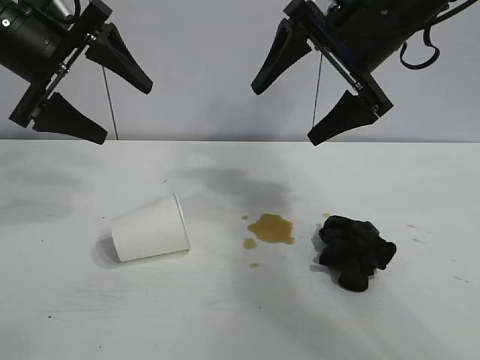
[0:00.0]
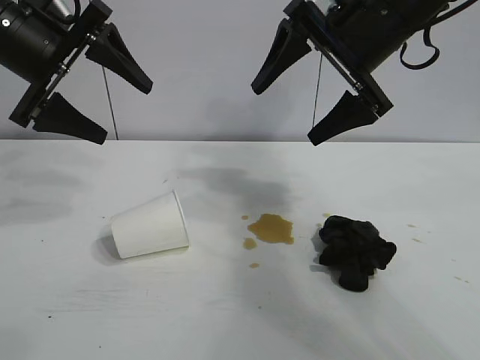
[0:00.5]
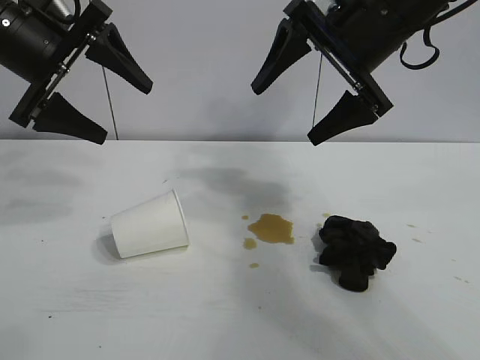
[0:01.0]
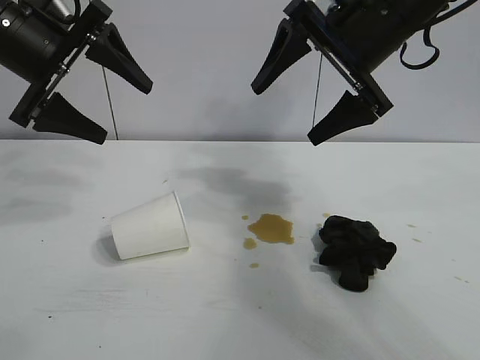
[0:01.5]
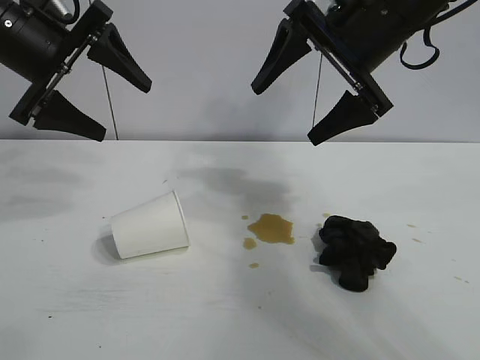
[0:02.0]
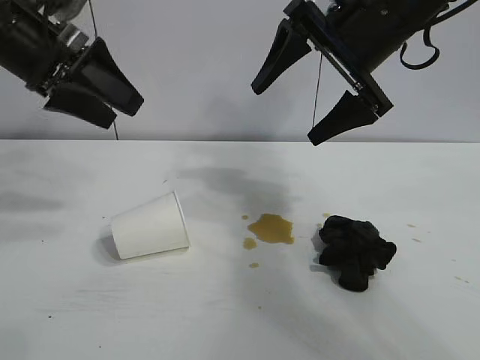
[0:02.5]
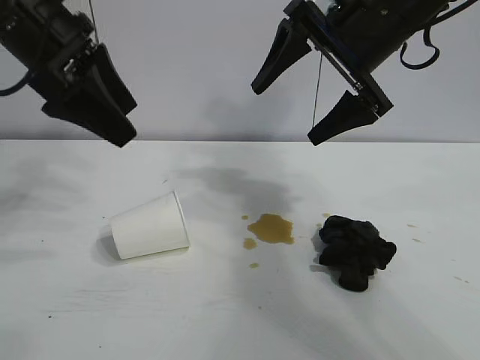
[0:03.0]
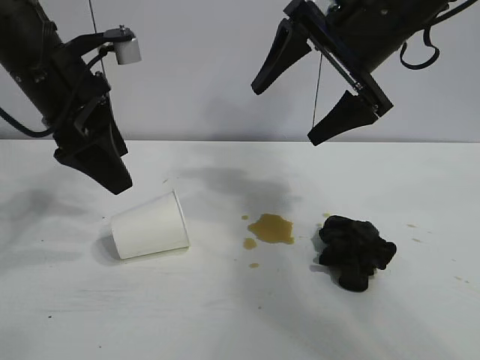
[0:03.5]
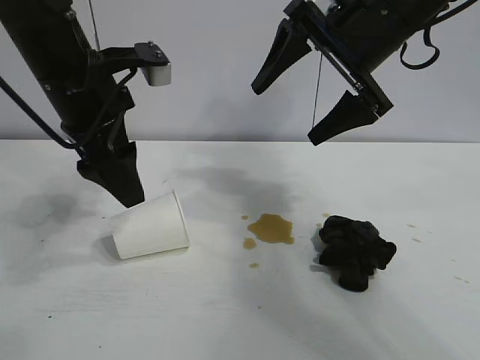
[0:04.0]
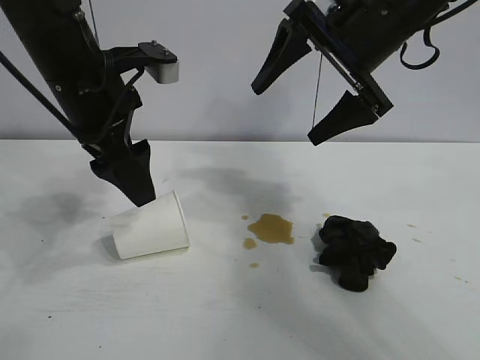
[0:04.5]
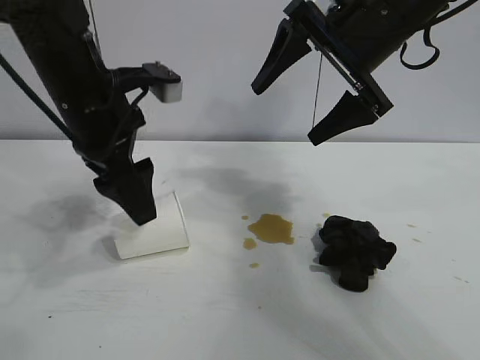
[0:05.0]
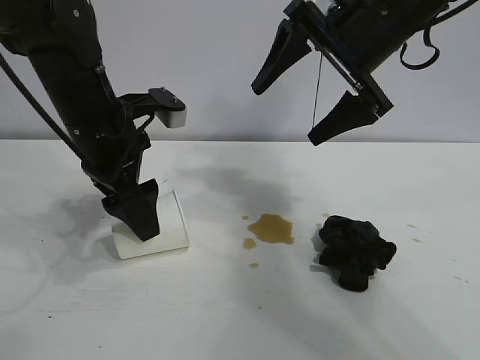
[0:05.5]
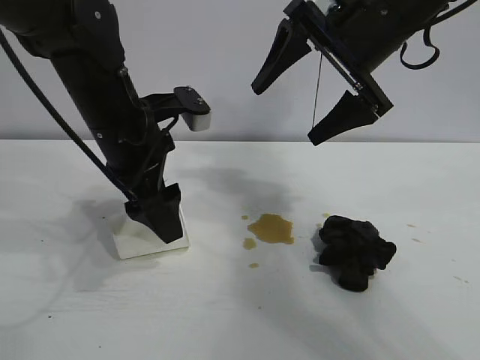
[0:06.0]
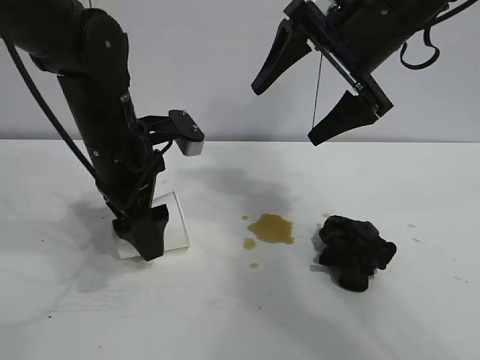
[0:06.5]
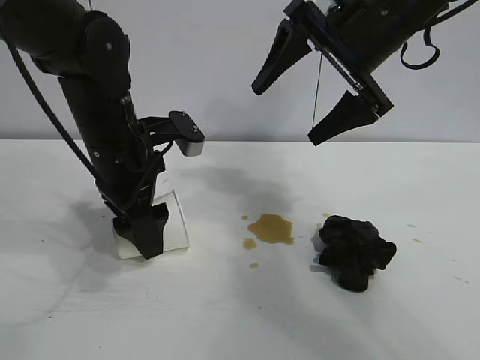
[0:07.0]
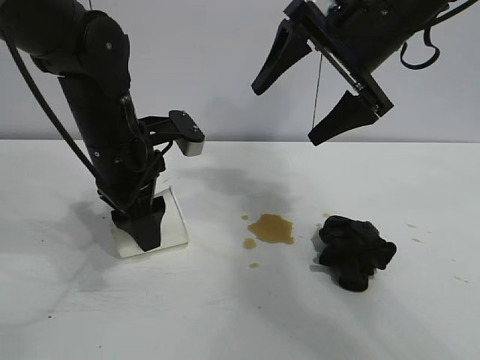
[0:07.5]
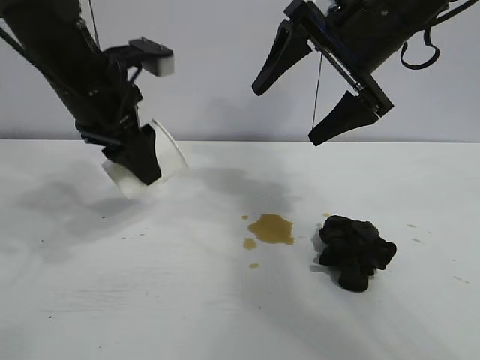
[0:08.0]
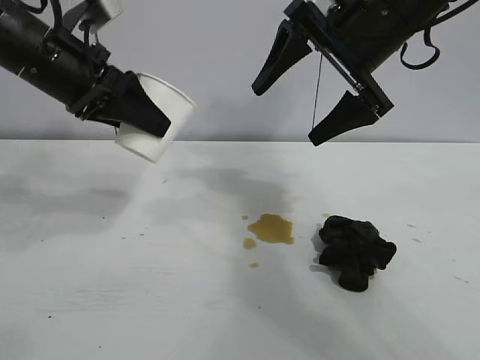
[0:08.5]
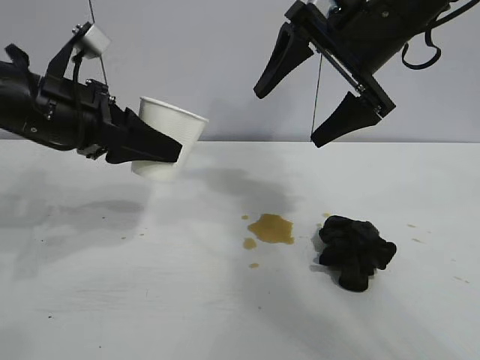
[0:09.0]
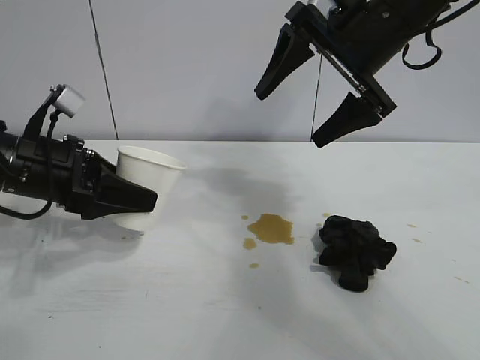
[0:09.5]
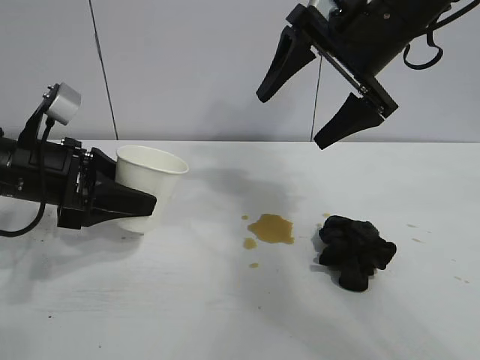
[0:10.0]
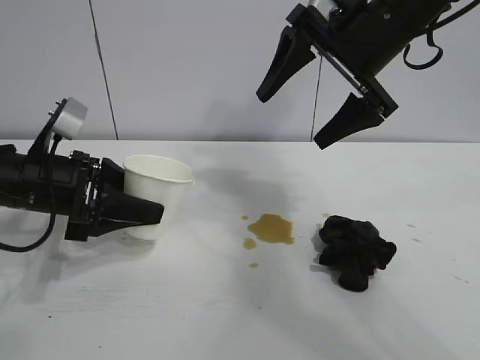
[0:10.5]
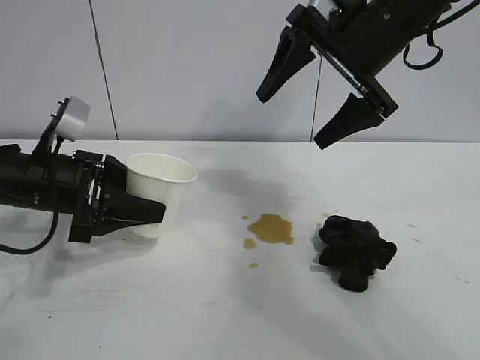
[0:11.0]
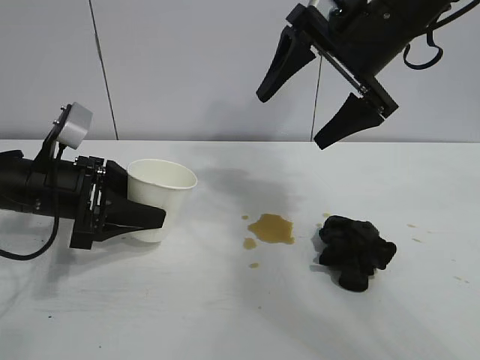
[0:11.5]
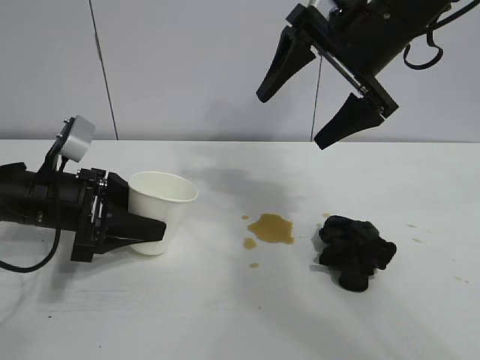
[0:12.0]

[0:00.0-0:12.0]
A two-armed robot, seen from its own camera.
Task of the whole recording: the left gripper pick up the fallen cup and place it upright, the right gripper grasp the black rag and wipe the stain on the table, the right gripper put the black rag back in its original position.
Step, 0:02.0 to 0:07.0: Grasp the paper cup with left gripper.

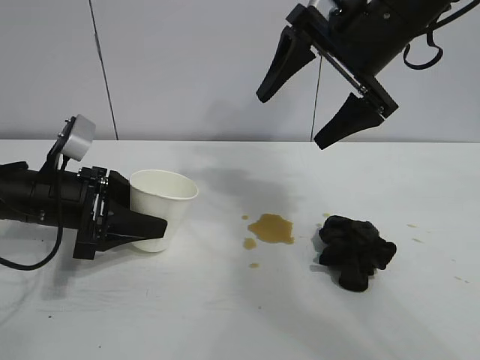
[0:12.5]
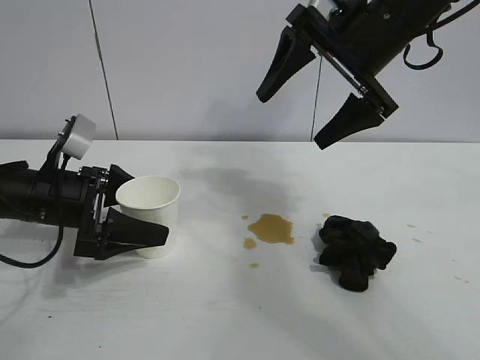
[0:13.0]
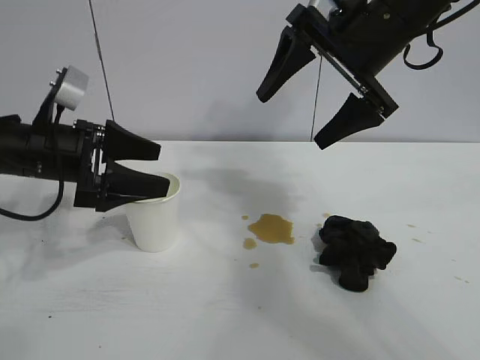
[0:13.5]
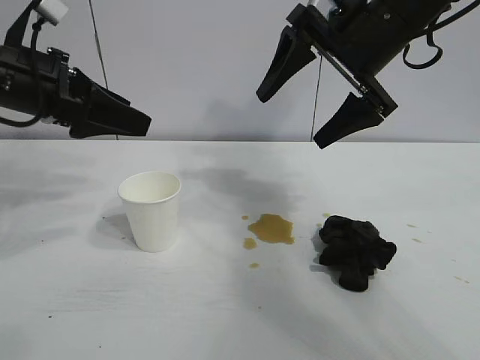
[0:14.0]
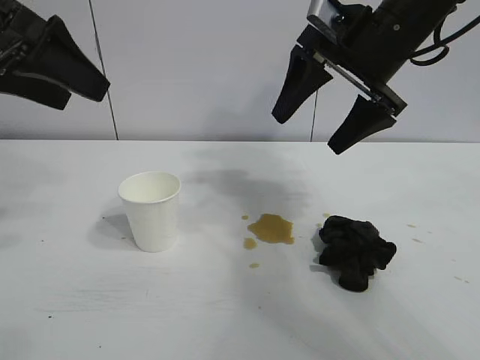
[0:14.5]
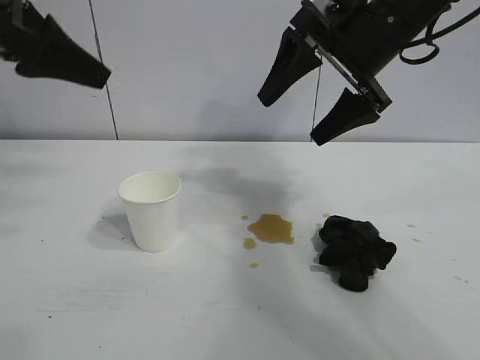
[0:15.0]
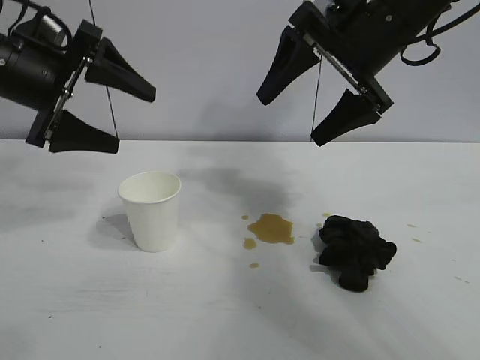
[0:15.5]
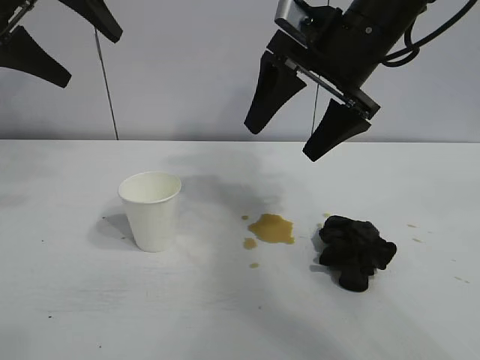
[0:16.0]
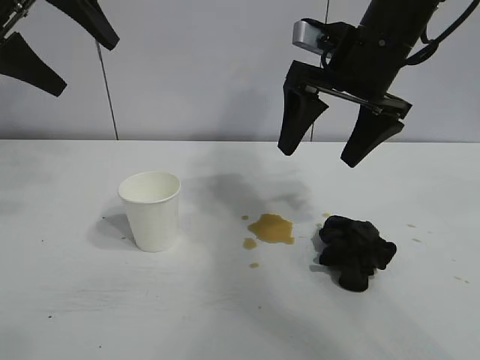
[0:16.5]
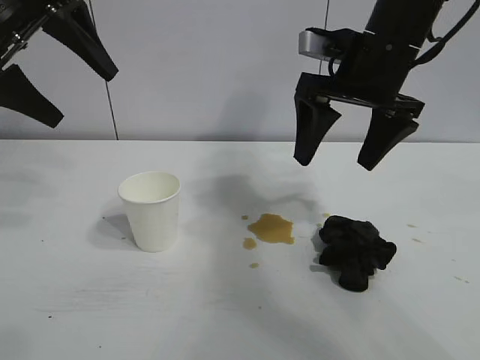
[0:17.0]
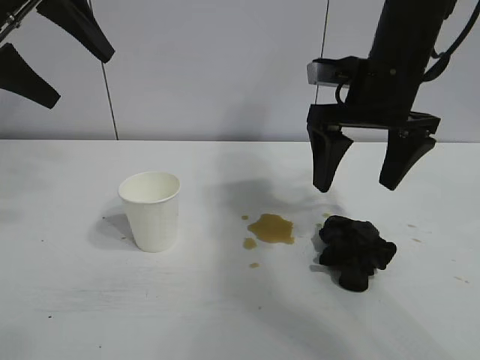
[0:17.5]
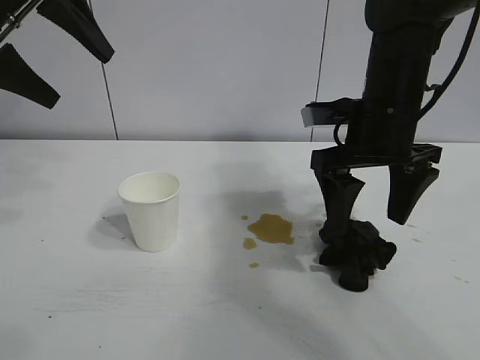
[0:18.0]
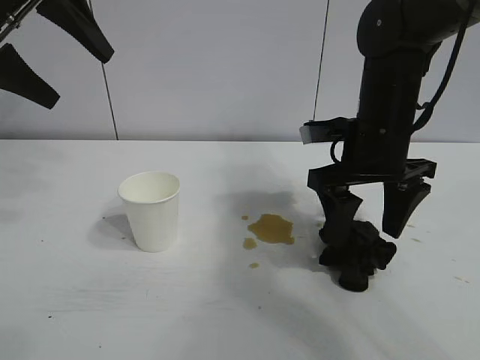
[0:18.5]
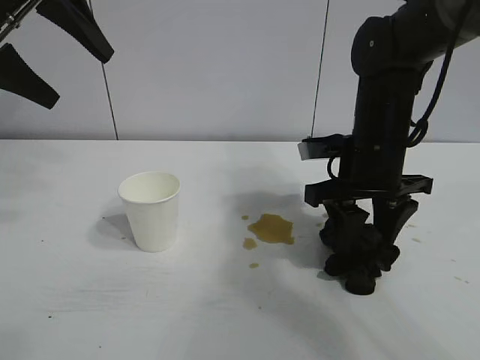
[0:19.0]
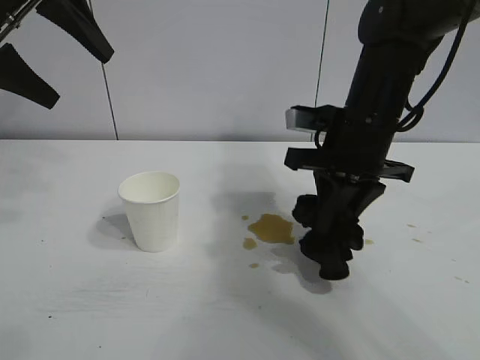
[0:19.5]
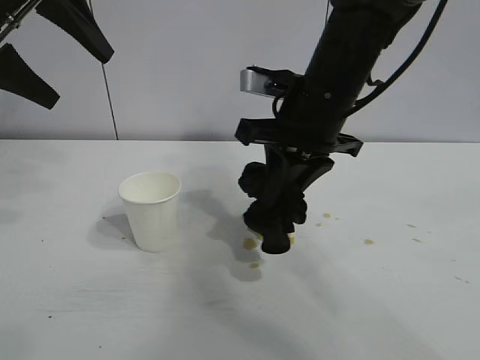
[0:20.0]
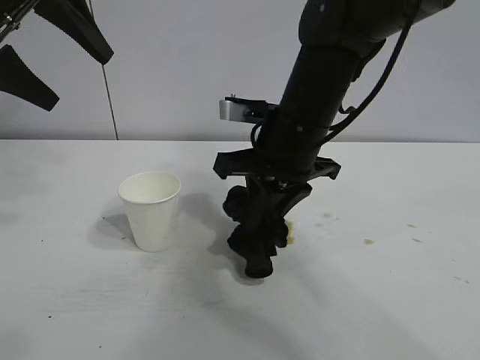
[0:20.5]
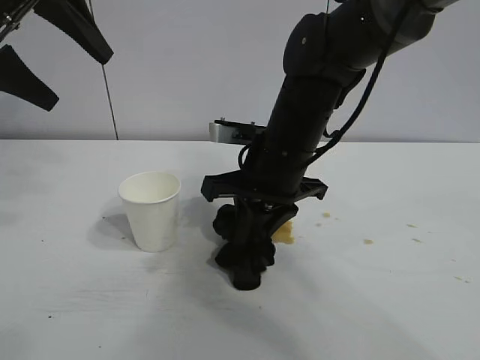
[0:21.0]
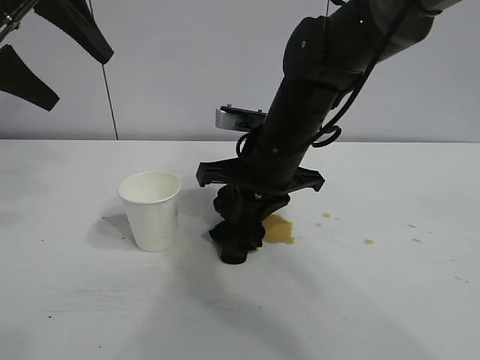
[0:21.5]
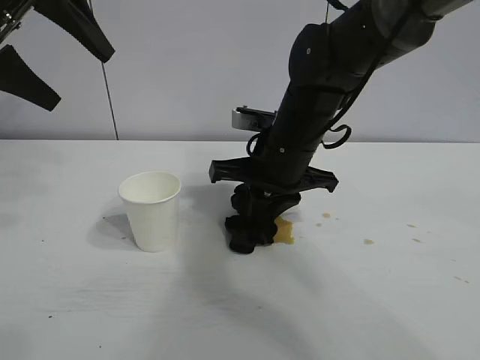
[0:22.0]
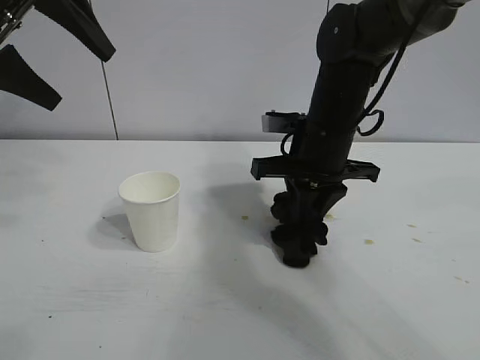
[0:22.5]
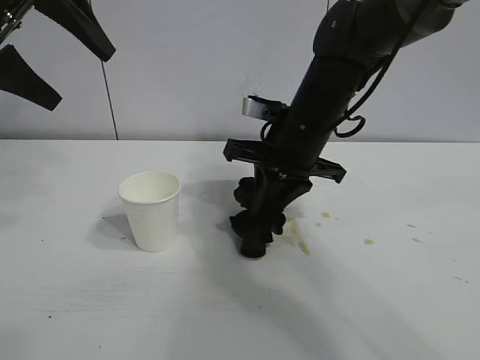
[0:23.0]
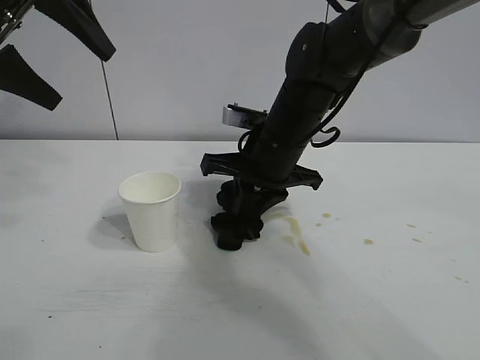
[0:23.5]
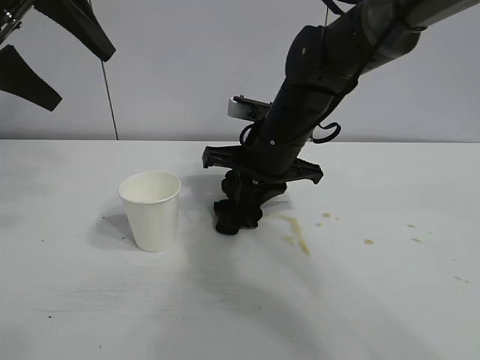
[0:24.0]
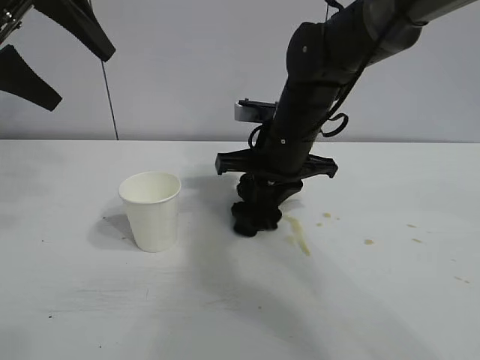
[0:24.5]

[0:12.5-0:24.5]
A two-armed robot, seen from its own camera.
Task of the whole recording: the left gripper pick up the fallen cup and place it upright, the right gripper grasp the black rag and wipe the stain on the table, the right gripper put the black rag back in its original position.
Step, 0:13.0 to 0:19.0: Grasp the rag with right gripper.

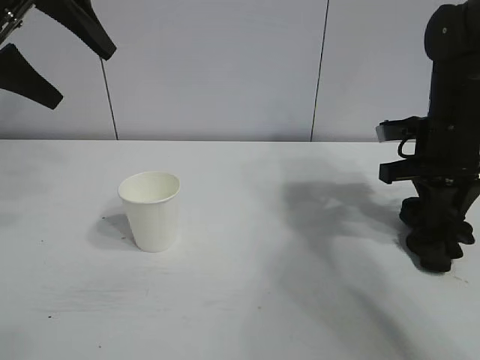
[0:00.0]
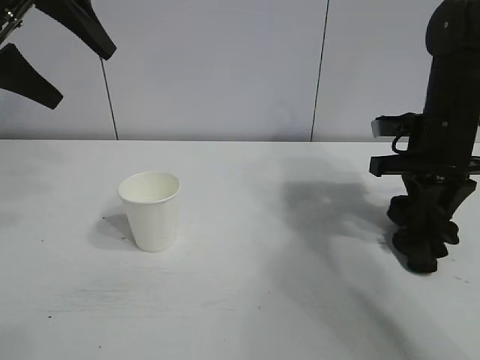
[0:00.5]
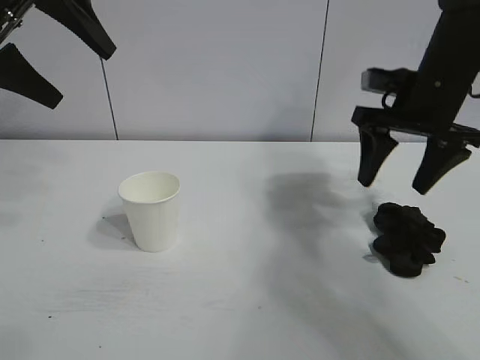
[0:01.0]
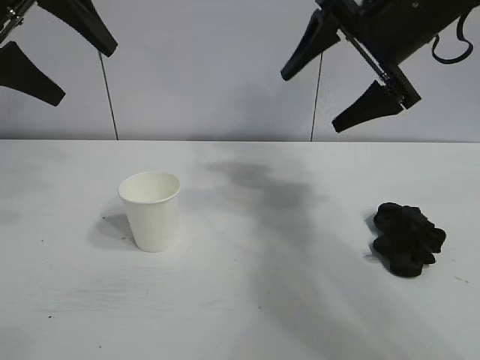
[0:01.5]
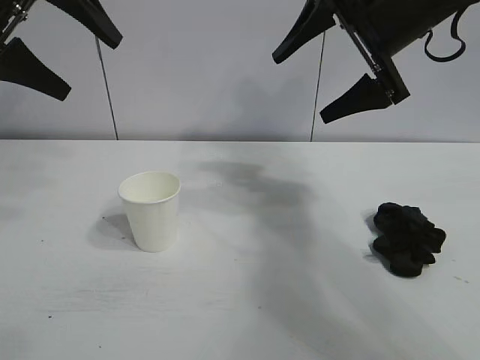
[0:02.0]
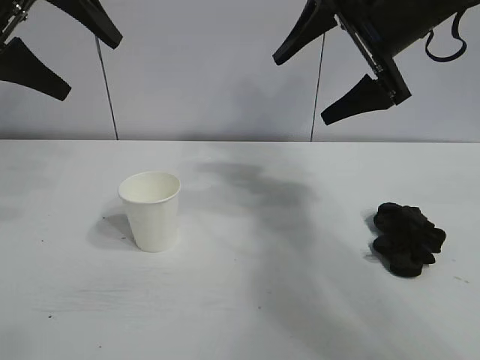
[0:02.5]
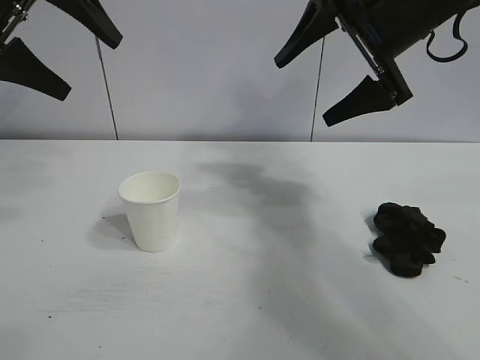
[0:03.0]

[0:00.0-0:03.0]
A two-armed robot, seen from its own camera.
Task of the whole recording: the left gripper pick up the fallen cup and place it upright, the right gripper grasp the black rag and wipe the stain on the table, the right gripper put the black rag back in its original position.
Step, 0:00.0 to 0:00.5: Place the rag on the table with right gripper.
